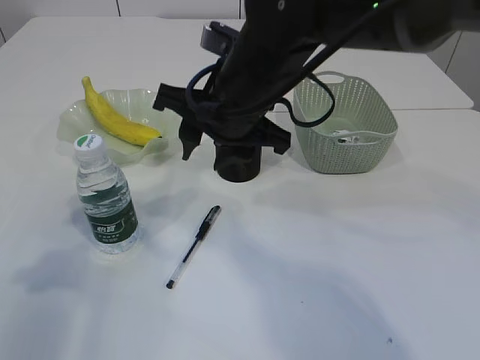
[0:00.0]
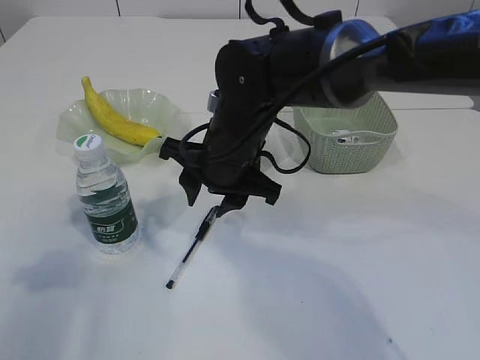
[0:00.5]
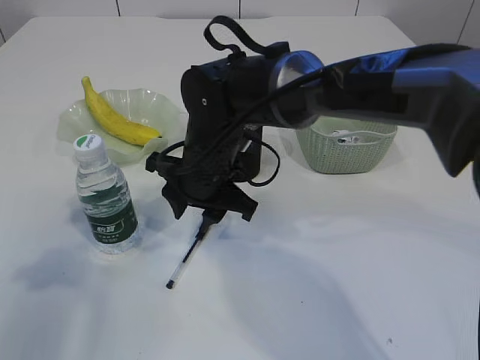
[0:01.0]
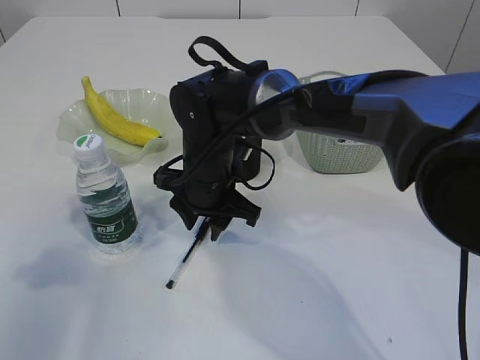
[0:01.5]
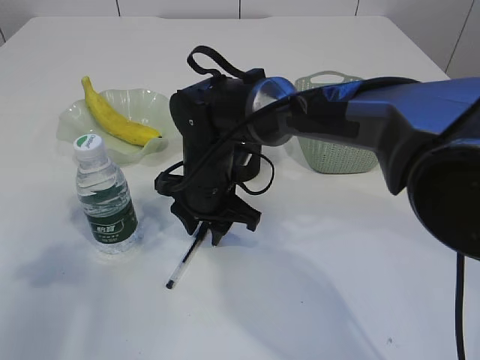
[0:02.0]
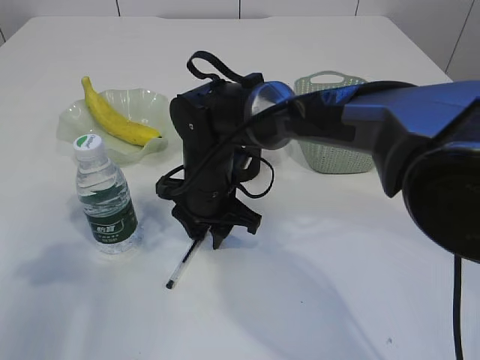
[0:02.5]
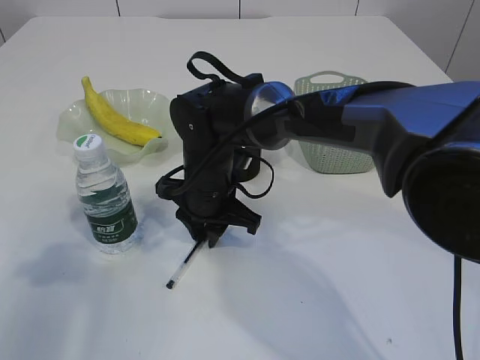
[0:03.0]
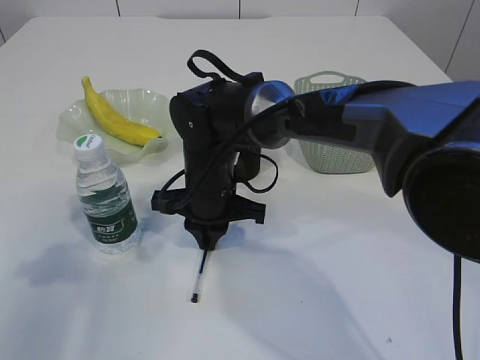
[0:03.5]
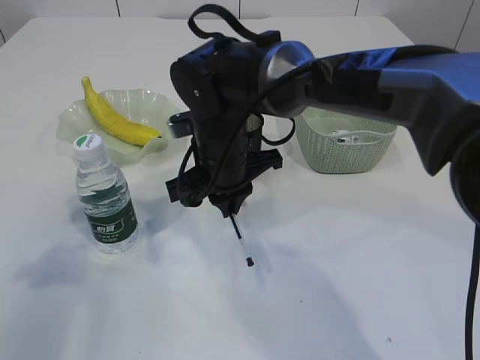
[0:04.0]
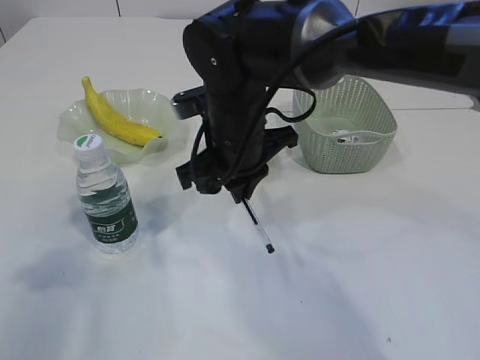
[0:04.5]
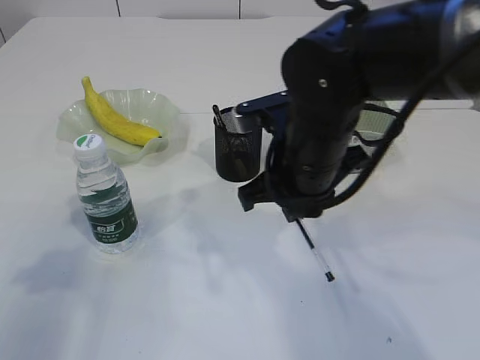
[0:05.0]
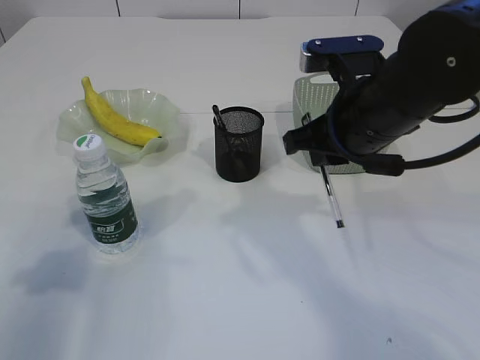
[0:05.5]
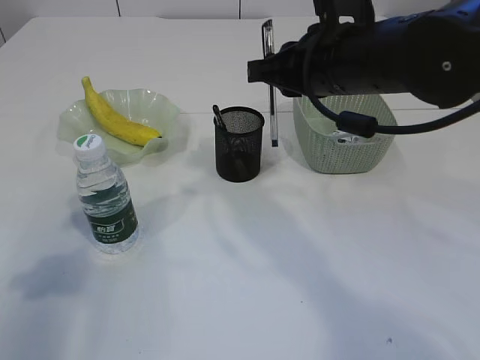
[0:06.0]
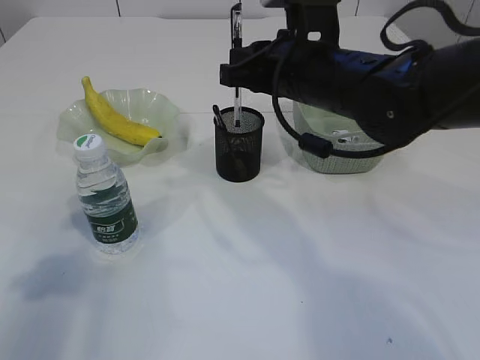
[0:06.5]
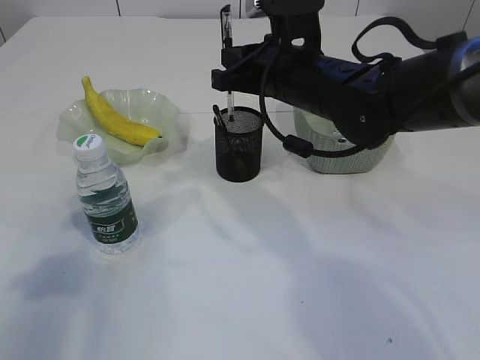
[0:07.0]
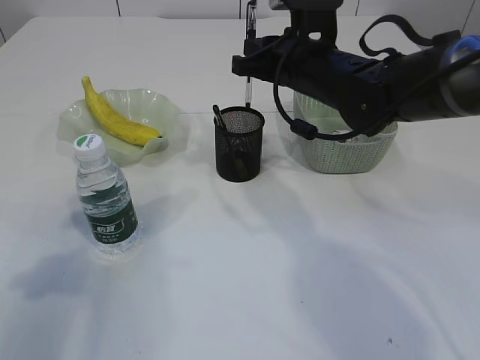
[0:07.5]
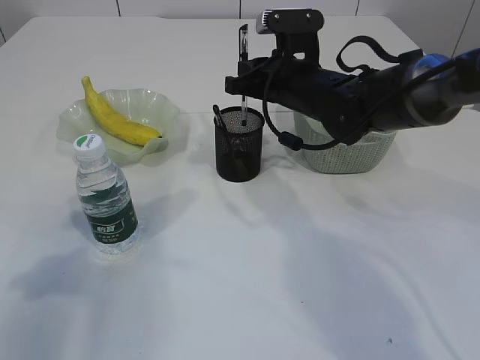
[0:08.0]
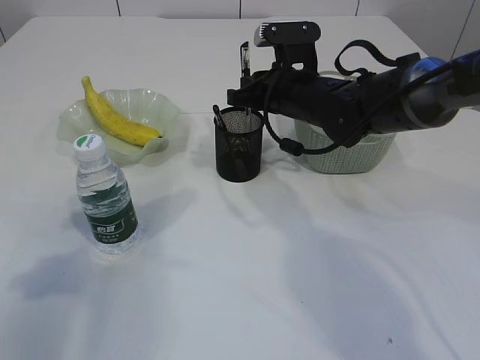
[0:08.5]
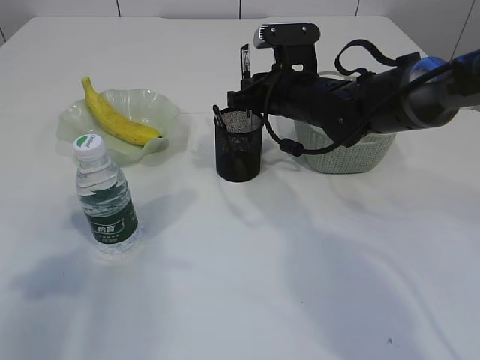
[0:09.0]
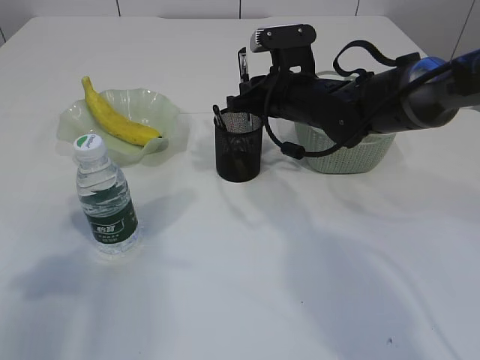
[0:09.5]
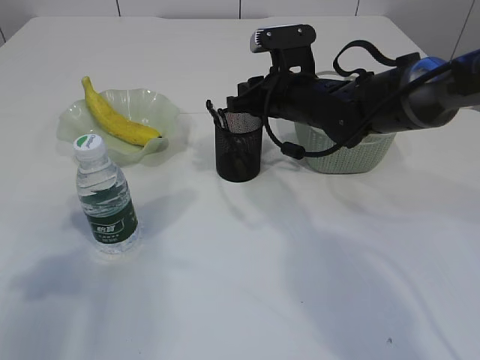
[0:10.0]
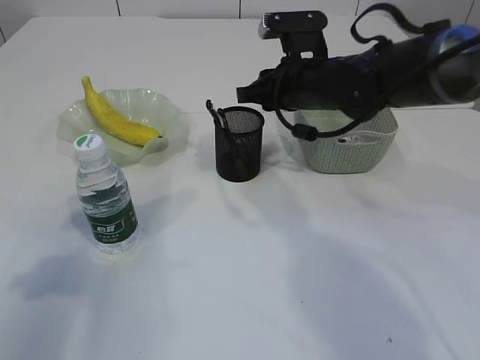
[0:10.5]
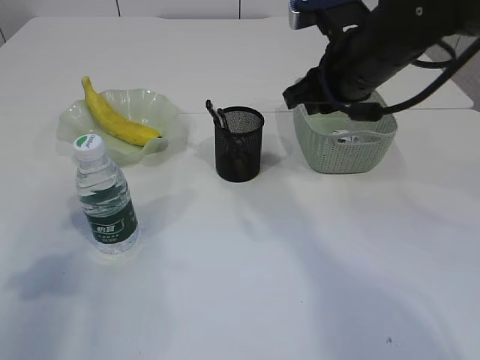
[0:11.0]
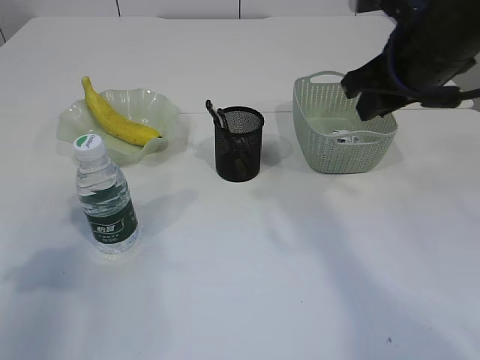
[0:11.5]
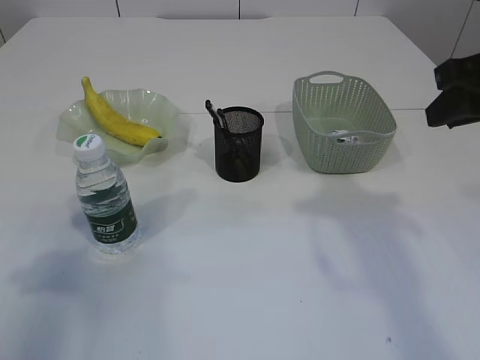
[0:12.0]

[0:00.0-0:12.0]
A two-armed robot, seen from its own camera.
Step, 0:00.0 to 0:04.0: Pick up the pen with right arm.
Step, 0:04.5 to 0:10.5: Place the pen into the pen holder.
0:00.0 to 0:02.0: The right gripper moves downward, about 15 cm.
0:02.0 to 0:04.0: The right gripper closes its fingers.
0:04.0 to 0:06.0: The right gripper shifts about 15 cm to the right and upward.
0:06.0 to 0:08.0: The right gripper goes approximately 15 cm forward and downward.
0:08.0 to 0:10.0: The grippers move only a little.
0:10.0 to 0:12.0: The right gripper shifts approximately 25 cm to the right, backward and upward.

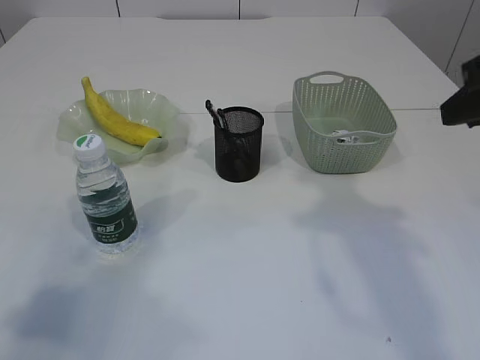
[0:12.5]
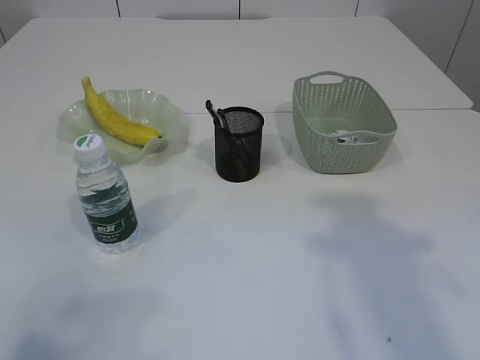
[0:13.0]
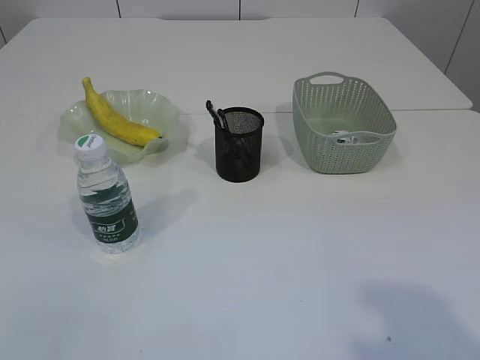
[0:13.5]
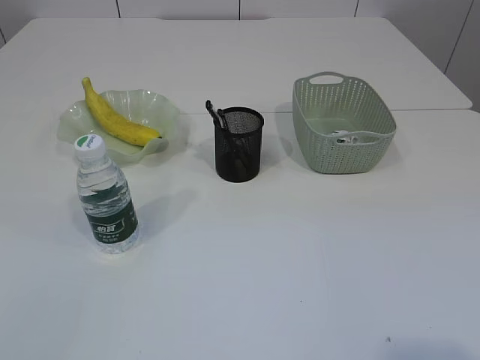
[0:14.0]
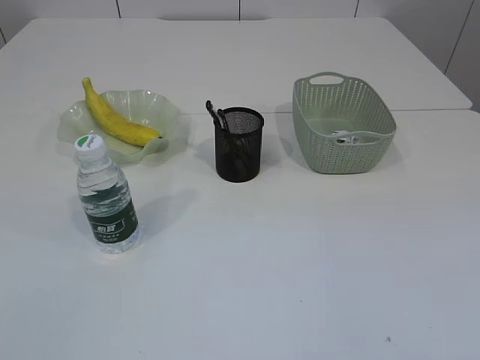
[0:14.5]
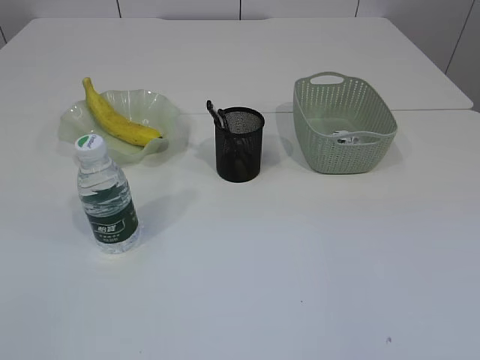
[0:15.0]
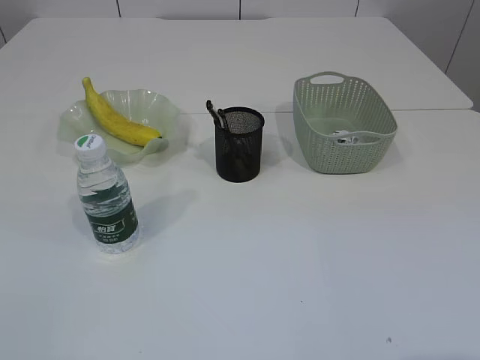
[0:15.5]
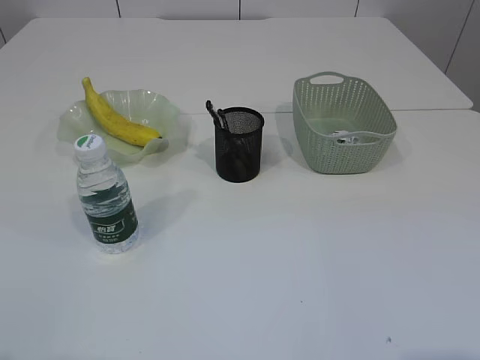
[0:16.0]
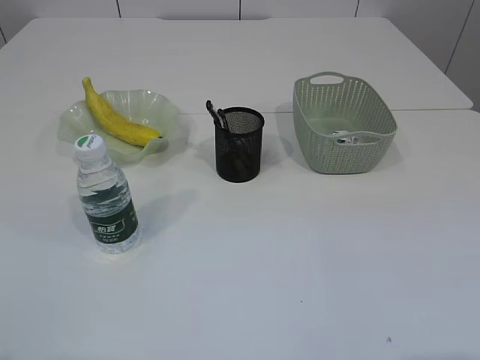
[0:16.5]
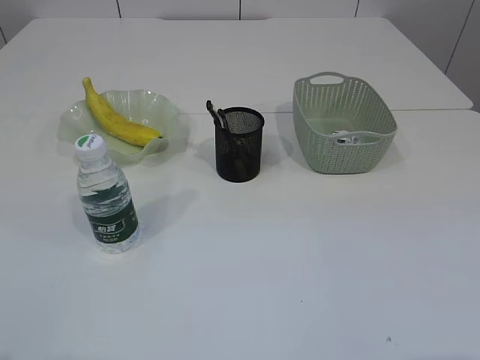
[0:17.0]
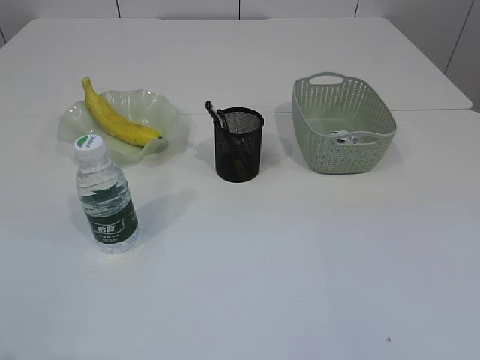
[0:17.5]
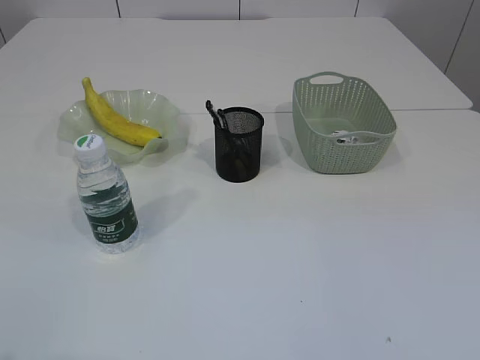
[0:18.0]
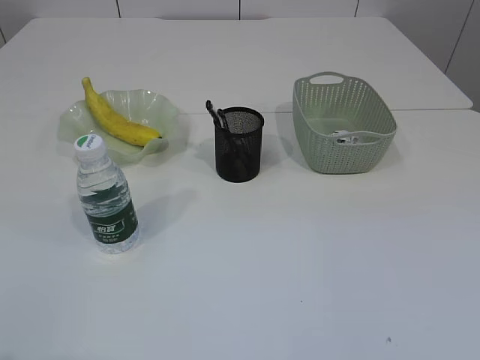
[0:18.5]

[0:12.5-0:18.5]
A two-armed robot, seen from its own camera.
0:12.5 to 0:14.5: The left gripper heads backward, covering roughly 15 cm; the right gripper goes roughly 30 cm backward.

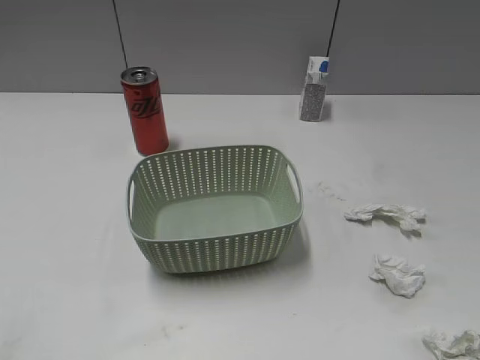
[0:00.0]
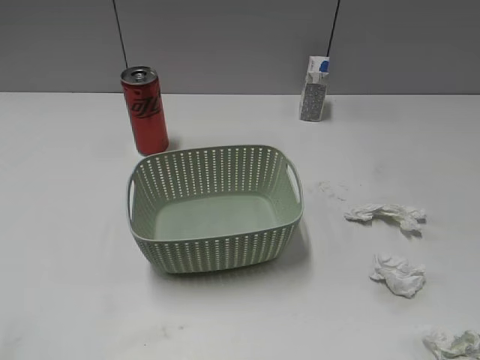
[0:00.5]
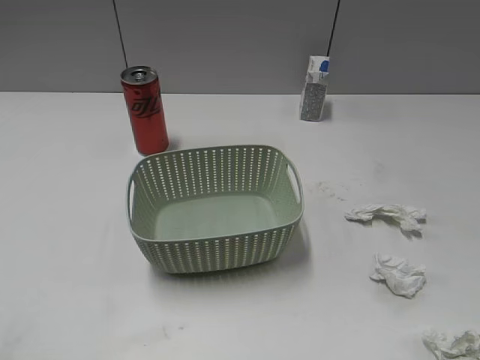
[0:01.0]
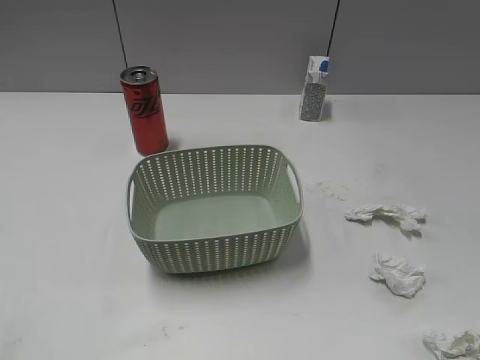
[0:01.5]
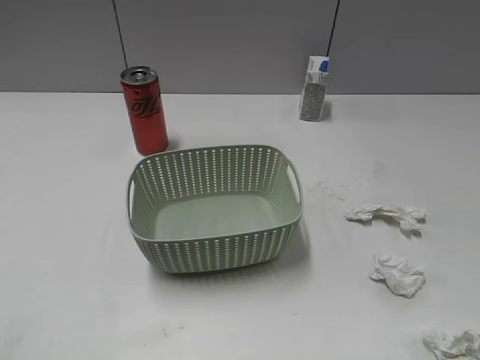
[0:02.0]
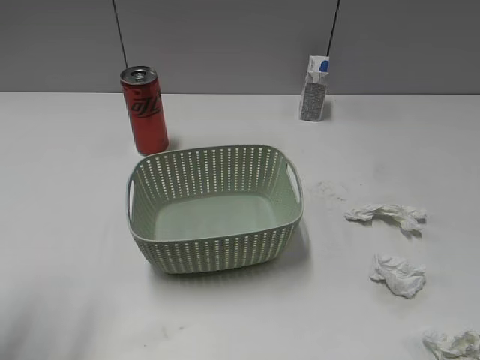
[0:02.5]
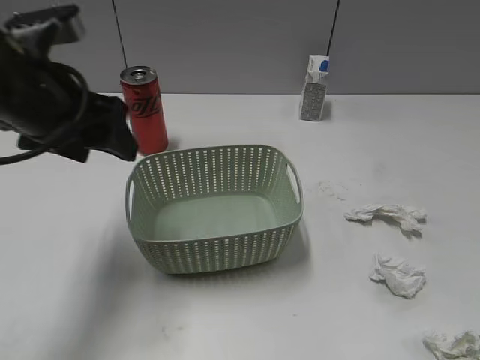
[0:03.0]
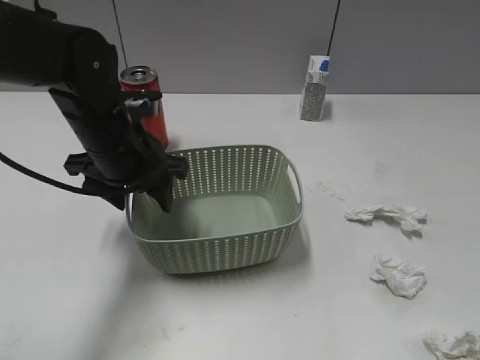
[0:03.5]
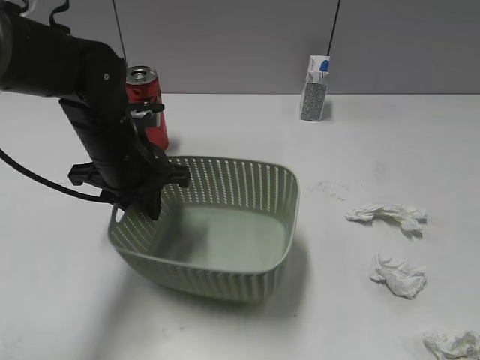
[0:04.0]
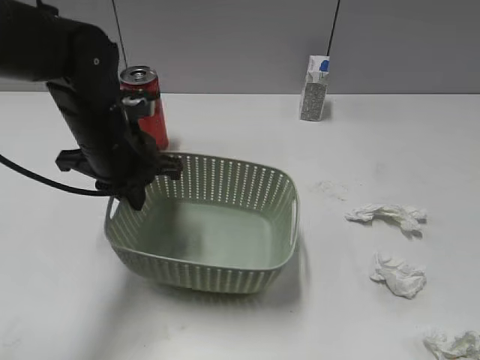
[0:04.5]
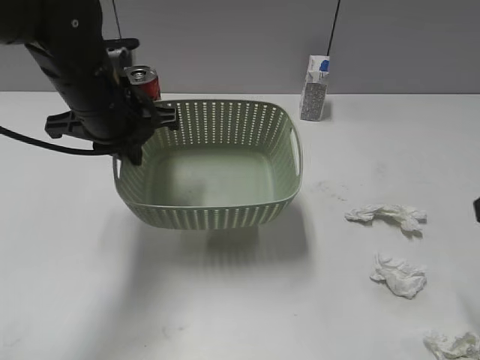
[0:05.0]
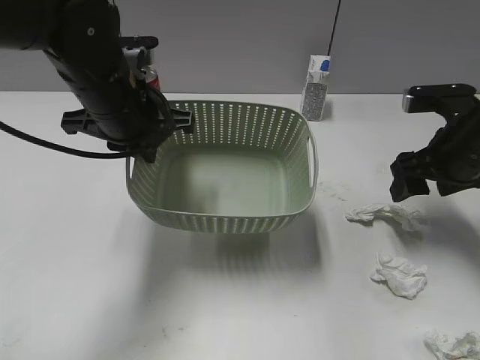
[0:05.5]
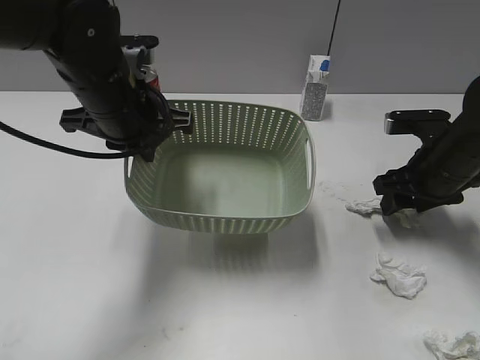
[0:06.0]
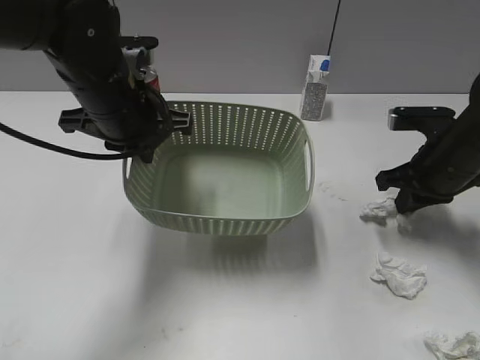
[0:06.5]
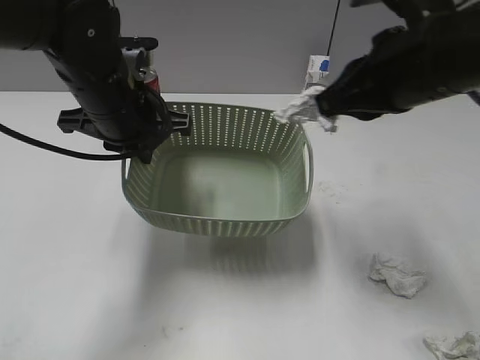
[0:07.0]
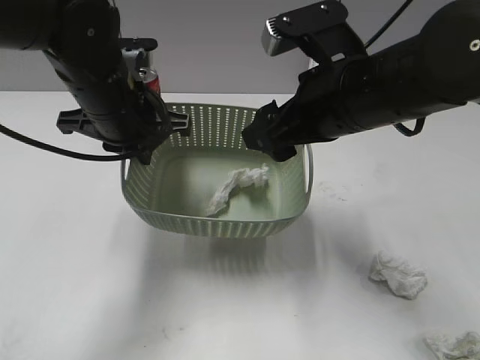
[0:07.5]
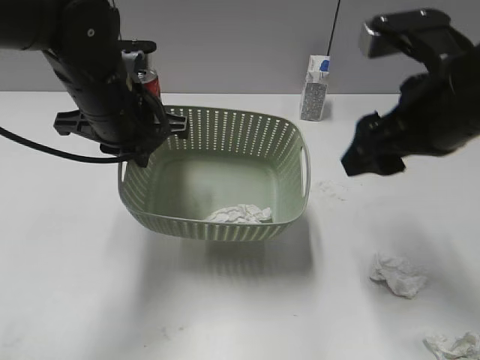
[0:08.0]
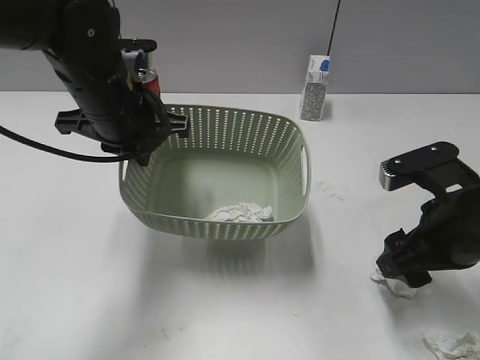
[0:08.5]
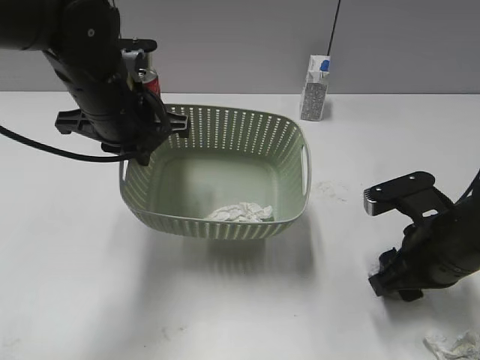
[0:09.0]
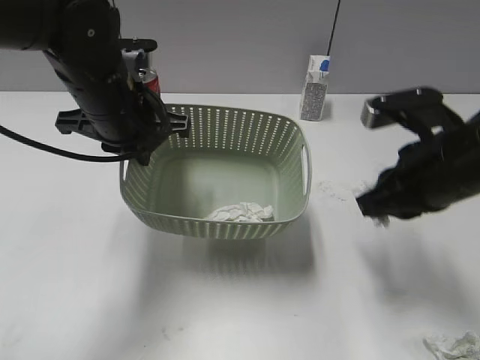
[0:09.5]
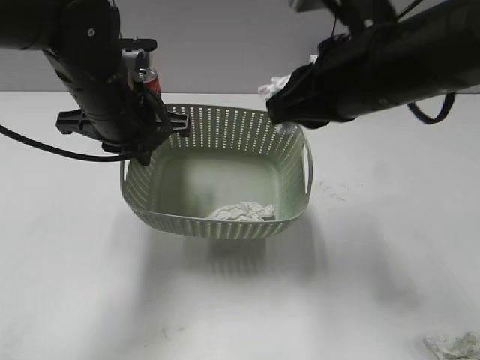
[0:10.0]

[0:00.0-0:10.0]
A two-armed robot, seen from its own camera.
Step, 0:02.0 to 0:04.0: Grasp the basket with left gripper.
Step, 0:04.5 to 0:05.0: Lift the basket with left gripper.
Step, 0:05.5 to 0:06.0: Grasp the waste paper with right gripper.
Step, 0:06.5 to 0:07.5: Place the waste paper in the basket with right gripper.
Step, 0:08.0 to 0:09.0: Grasp the waste paper with right gripper.
0:02.0 to 0:04.0: The left gripper is displaced forward, to the right and downward by about 40 cm.
0:04.0 to 0:06.0: The left gripper goes some 5 cm upward, and closes its fingers. Meanwhile the right gripper is displaced forward and downward by approximately 35 cm.
0:06.0 to 0:08.0: The right gripper heads upward, to the left and backward, covering about 20 cm, and closes and opens again.
0:08.0 to 0:10.0: The right gripper reaches roughly 15 cm downward, then returns, and closes up.
